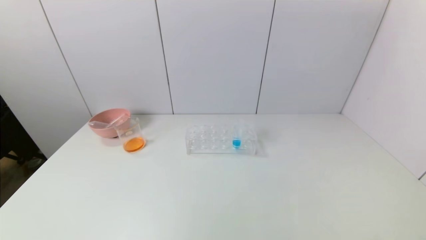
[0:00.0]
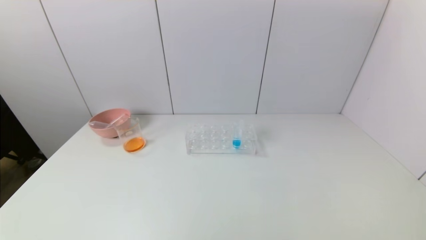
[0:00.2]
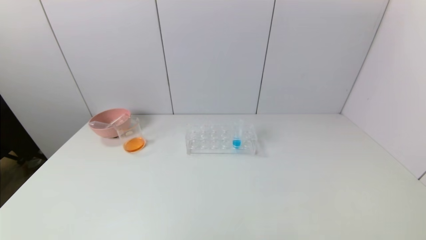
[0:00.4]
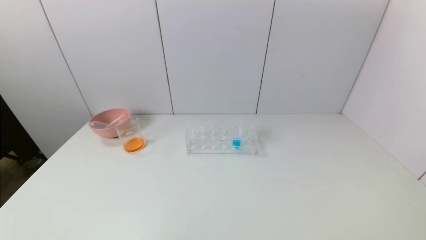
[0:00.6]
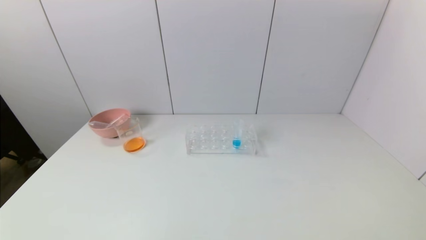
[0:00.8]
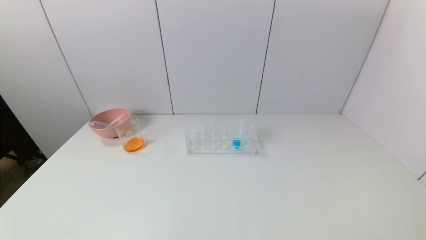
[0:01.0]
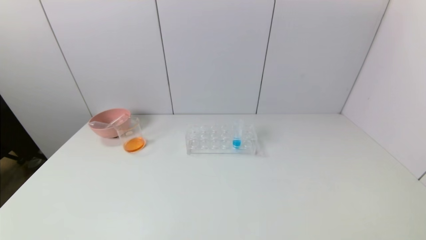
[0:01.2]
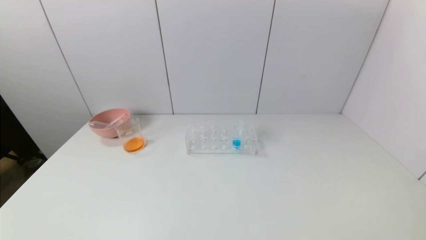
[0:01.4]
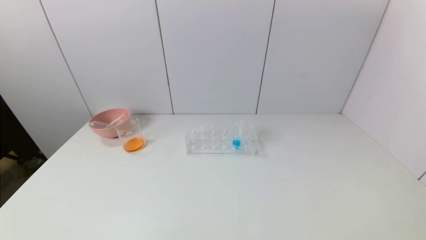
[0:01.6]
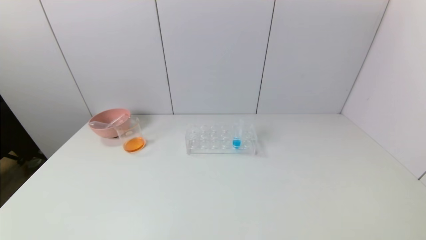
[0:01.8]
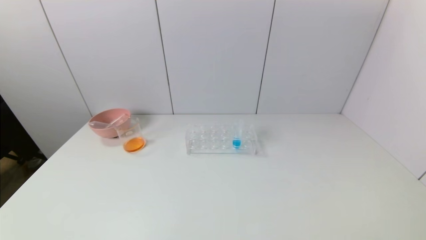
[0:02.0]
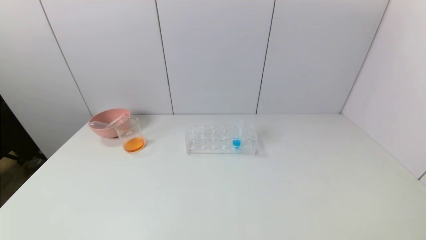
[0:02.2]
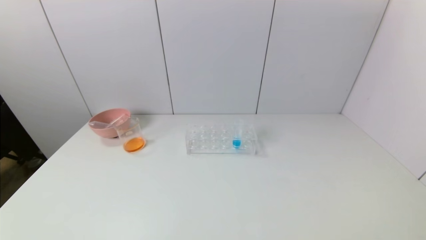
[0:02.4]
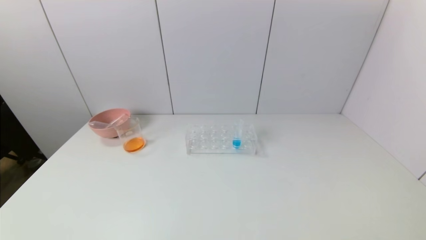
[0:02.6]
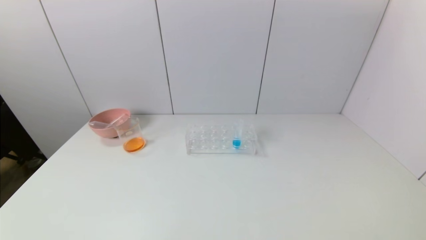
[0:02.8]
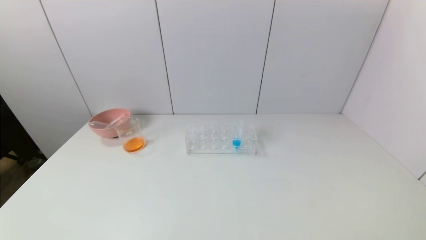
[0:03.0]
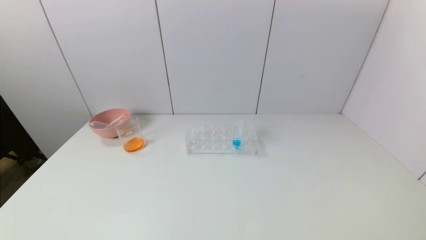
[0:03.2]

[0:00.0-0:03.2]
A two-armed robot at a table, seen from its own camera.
Task of the whole recording: pick up the test tube with yellow pigment and the test tube with red pigment by grippers and pour them into the beaker.
0:01.6 to 0:03.2: Both grippers stay about where they are.

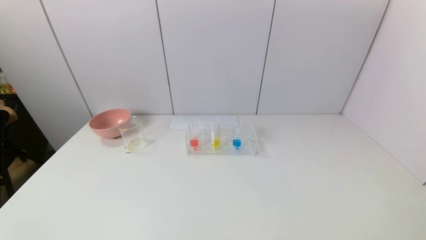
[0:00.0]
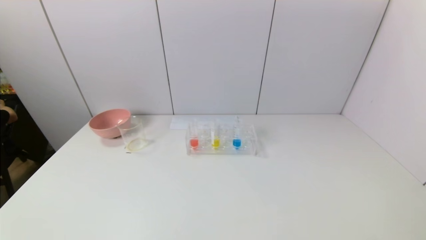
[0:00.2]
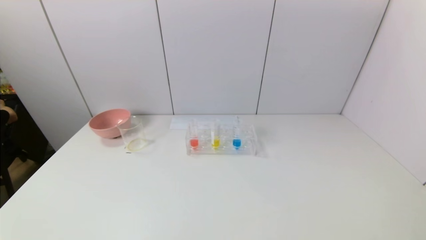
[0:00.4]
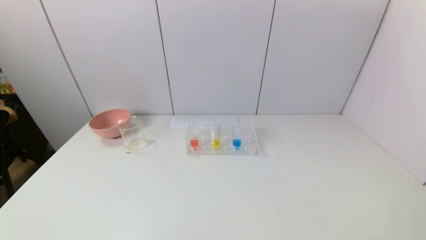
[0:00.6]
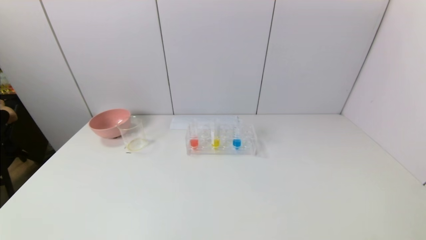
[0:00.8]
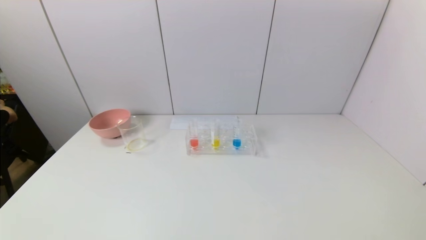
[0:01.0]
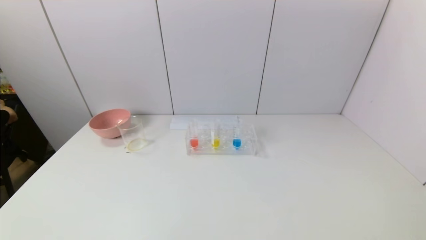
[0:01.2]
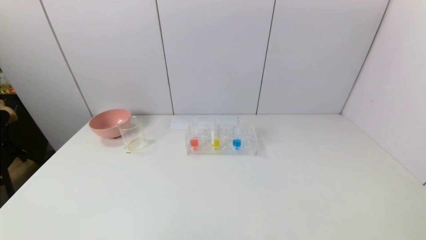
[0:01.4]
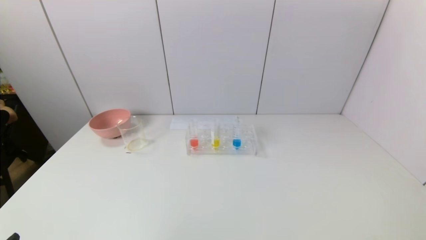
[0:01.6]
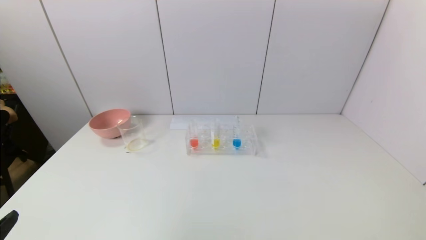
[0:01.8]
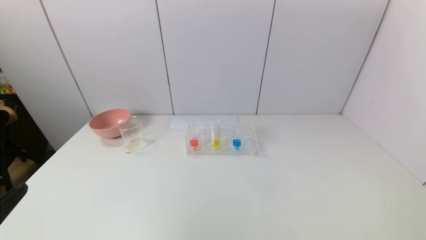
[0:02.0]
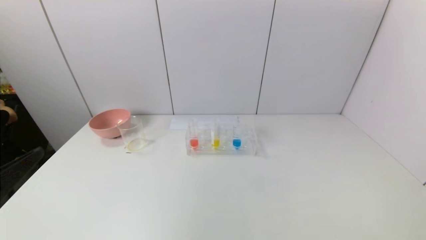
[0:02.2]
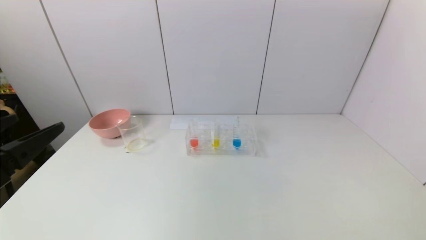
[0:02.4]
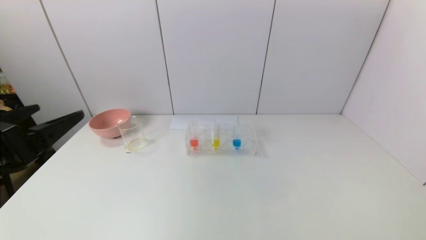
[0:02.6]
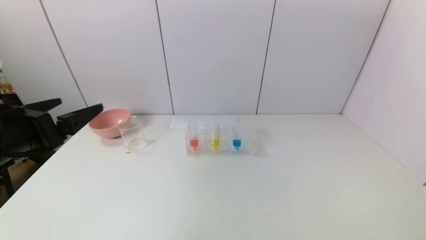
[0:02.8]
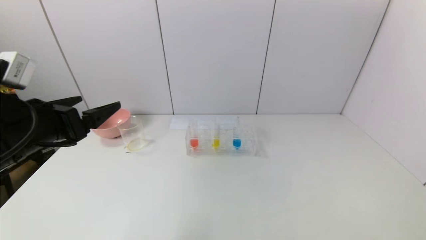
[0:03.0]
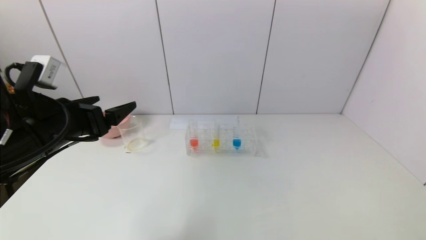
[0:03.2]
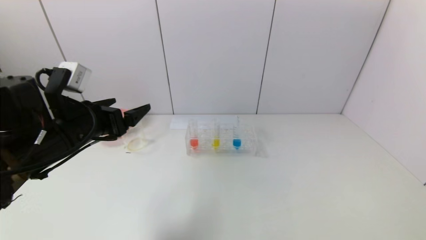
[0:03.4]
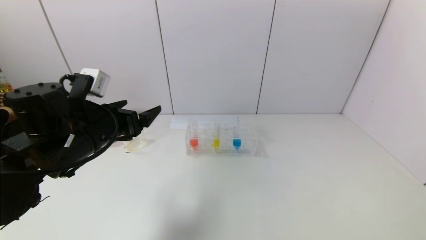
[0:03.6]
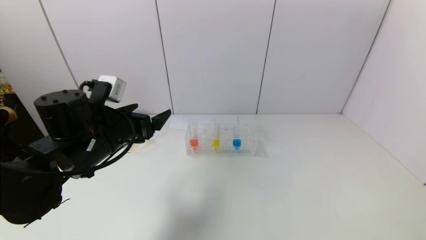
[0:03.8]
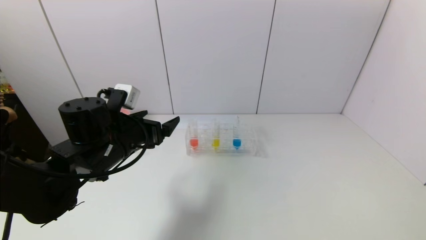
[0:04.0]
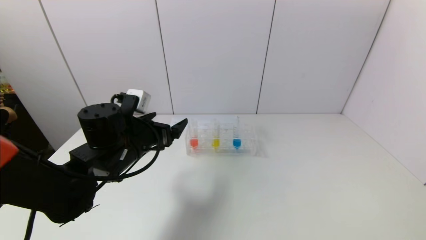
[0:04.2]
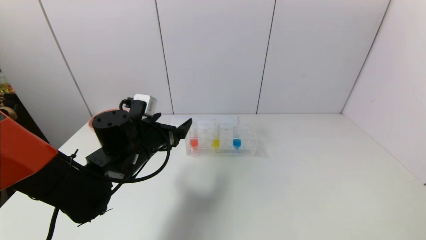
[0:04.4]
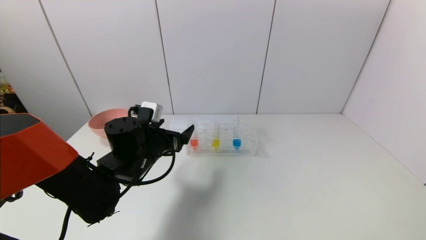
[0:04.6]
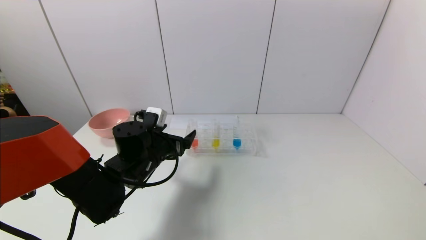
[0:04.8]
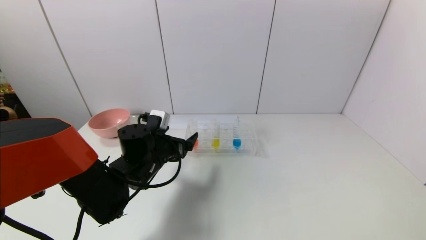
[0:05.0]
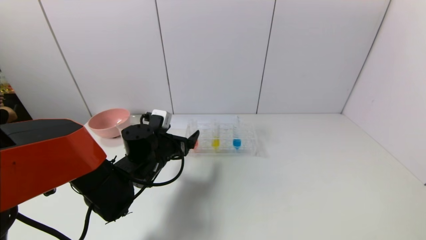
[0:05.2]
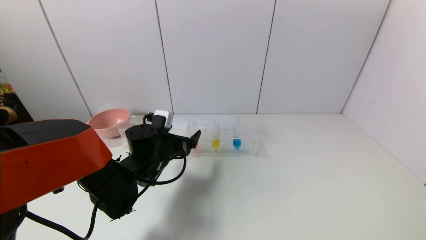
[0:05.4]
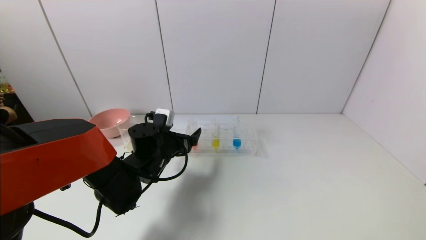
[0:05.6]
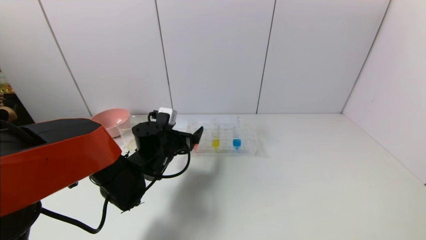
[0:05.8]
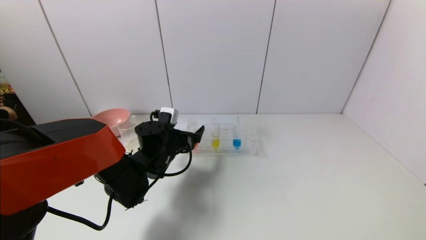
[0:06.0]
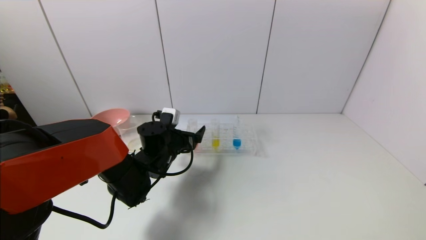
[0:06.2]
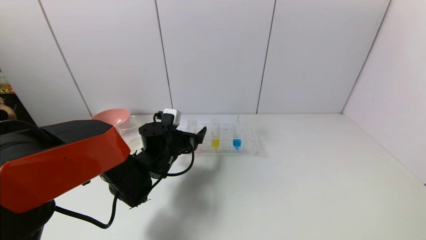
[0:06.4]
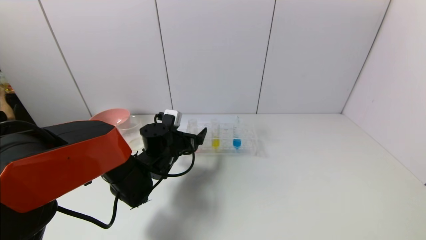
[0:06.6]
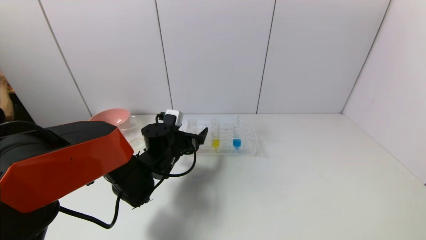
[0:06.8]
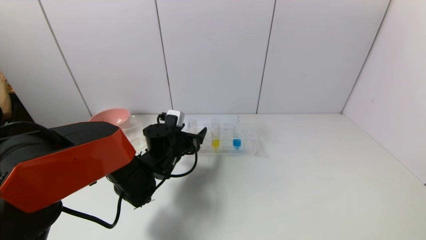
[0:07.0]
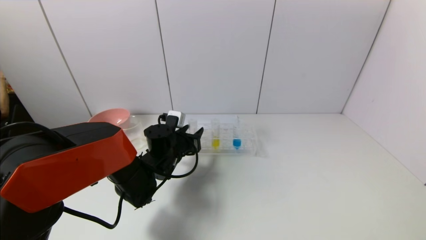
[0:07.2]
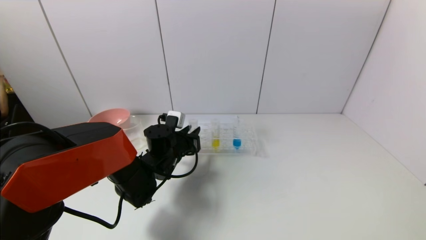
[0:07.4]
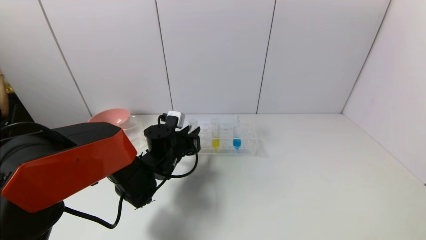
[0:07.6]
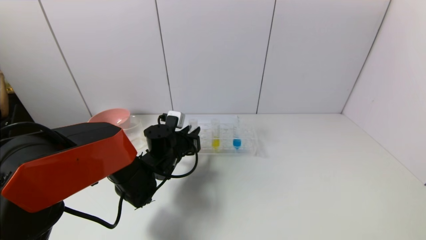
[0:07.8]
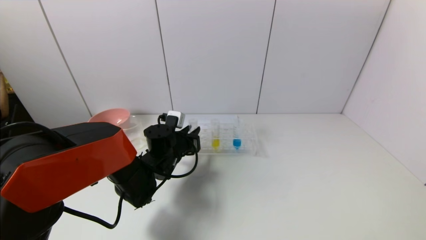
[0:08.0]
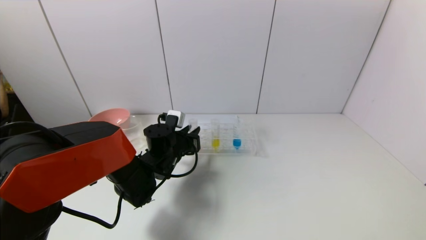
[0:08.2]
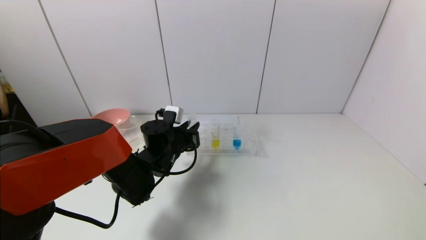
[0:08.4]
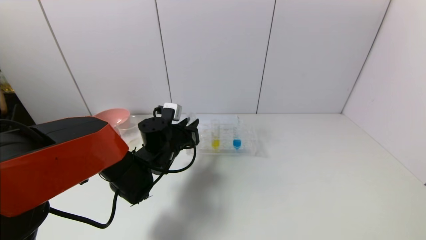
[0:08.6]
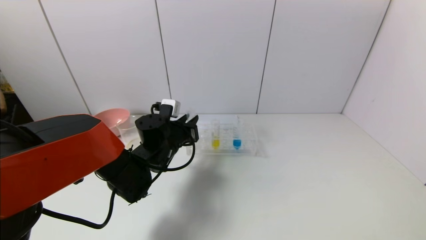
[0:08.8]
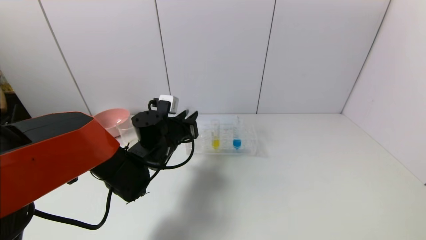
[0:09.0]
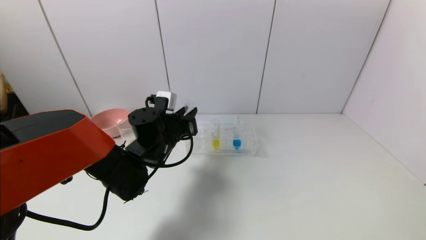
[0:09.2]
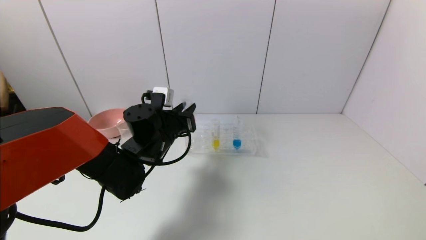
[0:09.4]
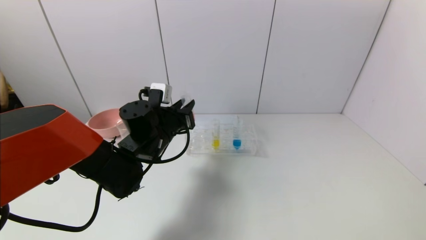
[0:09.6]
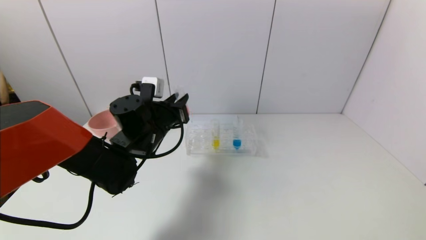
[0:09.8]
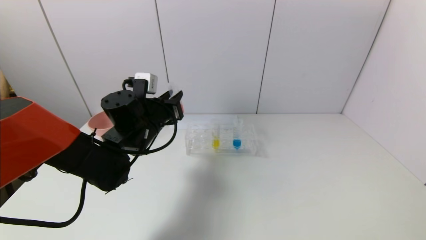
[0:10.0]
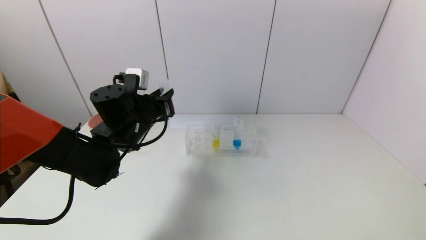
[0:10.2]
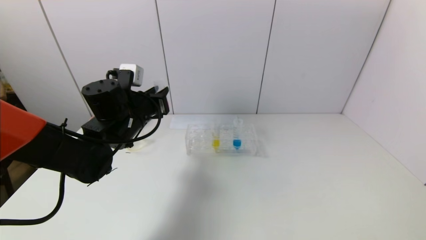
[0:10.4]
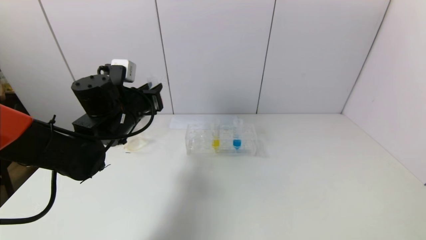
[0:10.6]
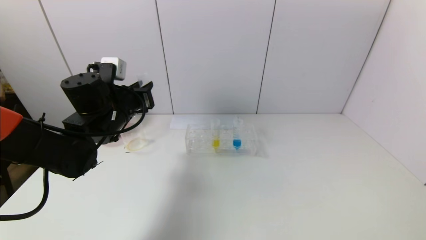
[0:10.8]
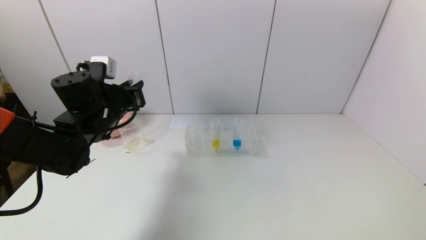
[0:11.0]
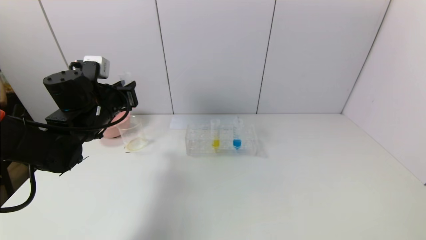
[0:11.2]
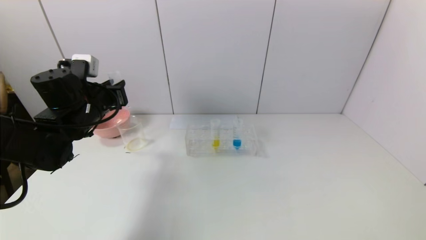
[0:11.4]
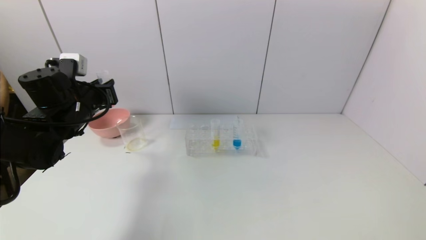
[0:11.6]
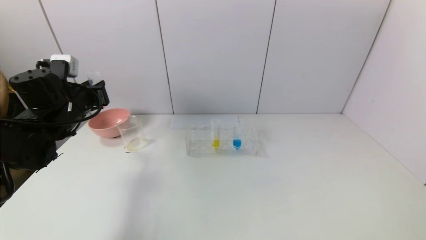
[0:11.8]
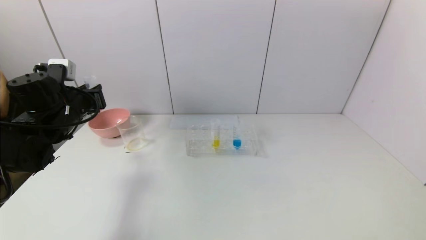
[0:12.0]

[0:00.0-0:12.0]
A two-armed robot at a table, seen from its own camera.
Task of the whole recording: pick up the test tube with yellow pigment and the test tube with red pigment by grippers and pour them into the beaker.
Step, 0:00.0 to 0:07.6: Grasp the red reagent with the left gripper.
0:01.6 to 0:03.0: The left gripper goes roughly 20 cm forward.
0:03.0 to 0:04.4: The left gripper goes about 20 cm to the right, downward and forward.
0:04.4 to 0:06.0: The left gripper travels forward and downward by some 10 cm.
0:06.0 to 0:07.6: The left gripper closes up.
0:07.6 to 0:09.0: The left gripper moves upward, approximately 5 cm.
0:09.0 to 0:10.4: The left gripper shifts approximately 10 cm upward and to the left.
0:10.4 to 0:12.0: The left gripper travels to the left by approximately 15 cm.

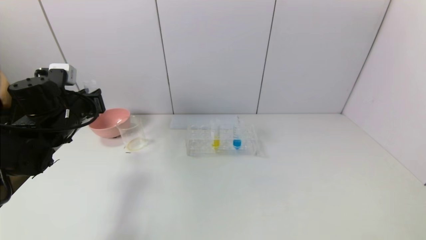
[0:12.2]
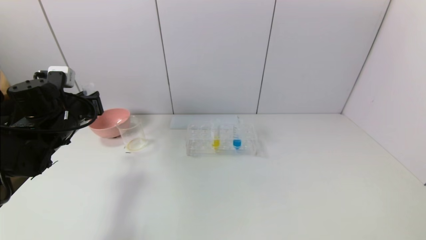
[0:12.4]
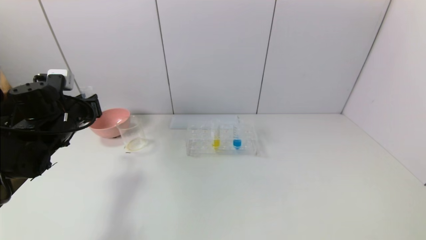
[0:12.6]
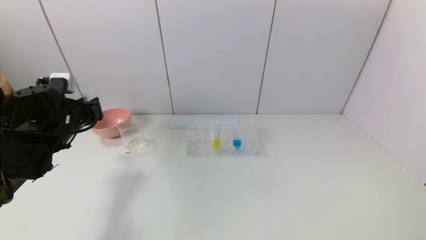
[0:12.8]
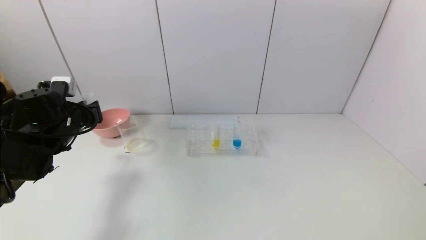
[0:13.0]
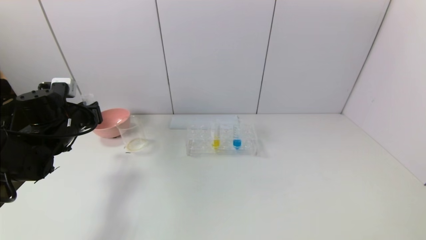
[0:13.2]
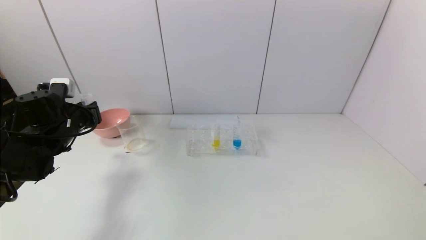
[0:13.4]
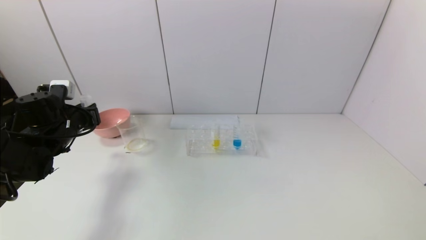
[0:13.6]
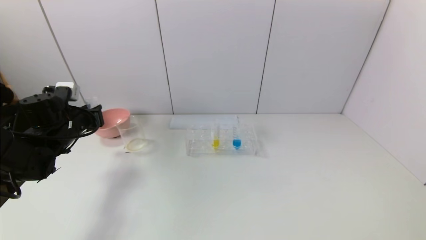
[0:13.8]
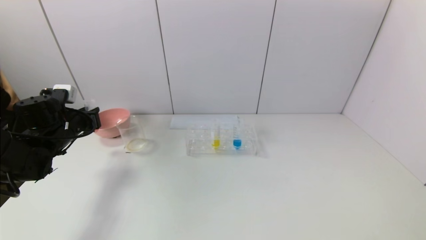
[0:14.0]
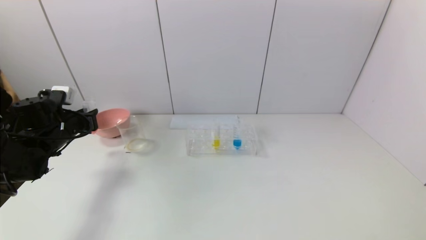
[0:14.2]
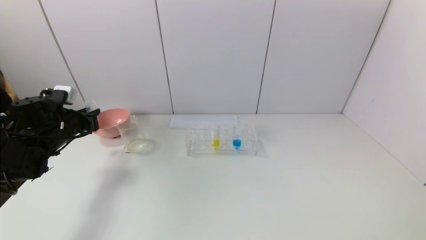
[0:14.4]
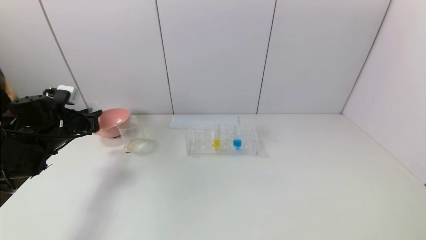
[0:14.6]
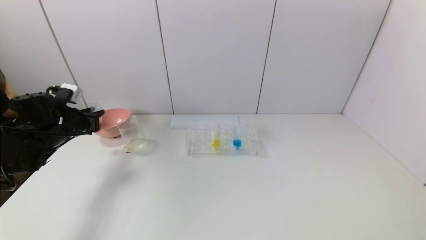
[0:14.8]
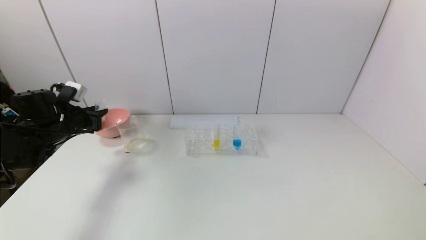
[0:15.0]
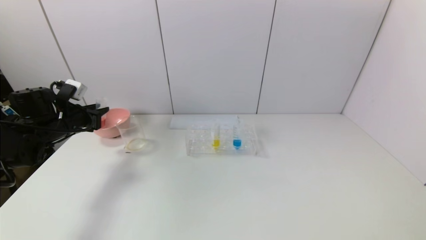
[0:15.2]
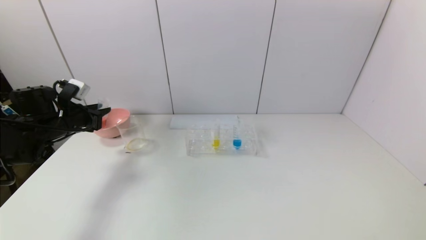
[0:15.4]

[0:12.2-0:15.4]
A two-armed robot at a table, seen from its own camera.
Task of the whole recording: pick up the test tube with yellow pigment and the test tube with red pigment by grippers and pour them into the beaker.
0:12.2 to 0:13.8: The left gripper moves roughly 5 cm.
